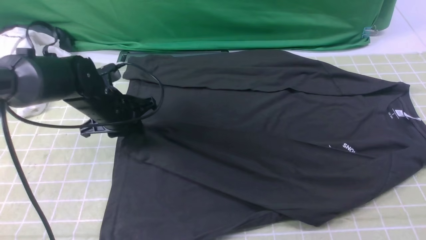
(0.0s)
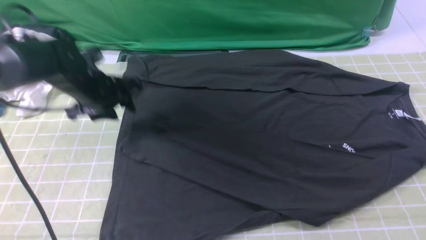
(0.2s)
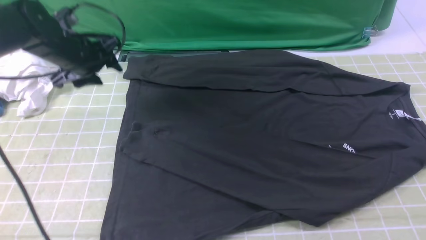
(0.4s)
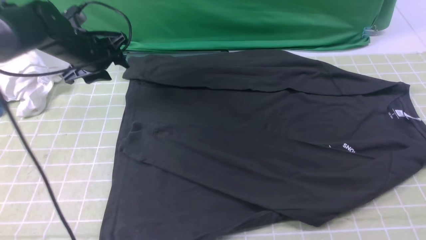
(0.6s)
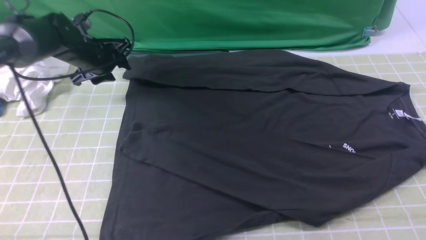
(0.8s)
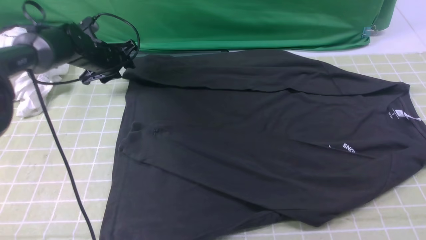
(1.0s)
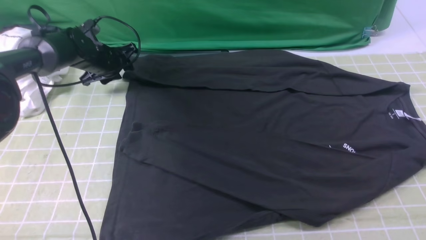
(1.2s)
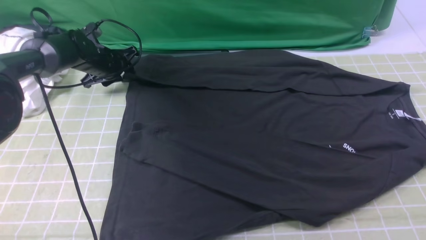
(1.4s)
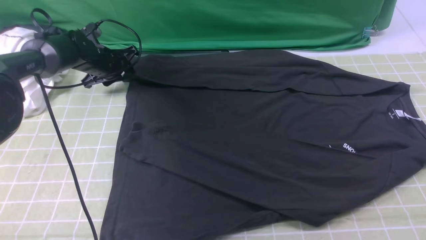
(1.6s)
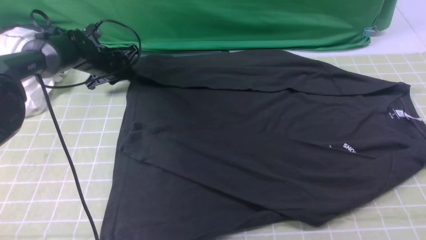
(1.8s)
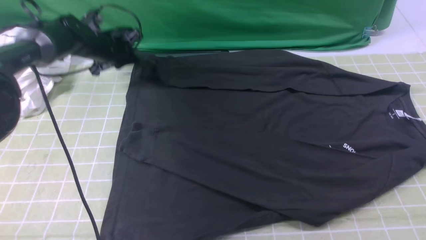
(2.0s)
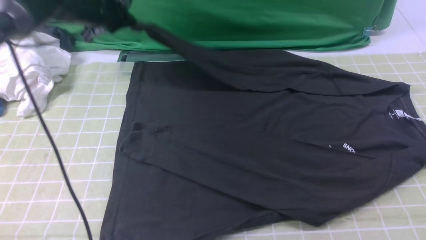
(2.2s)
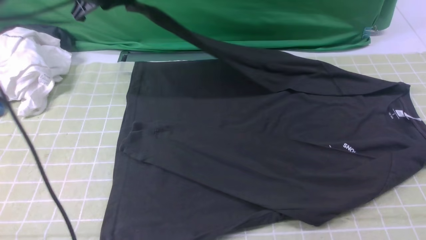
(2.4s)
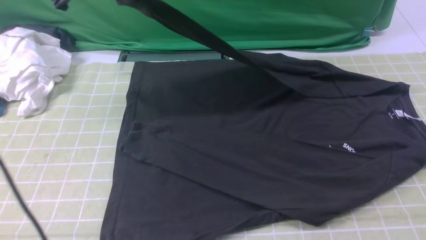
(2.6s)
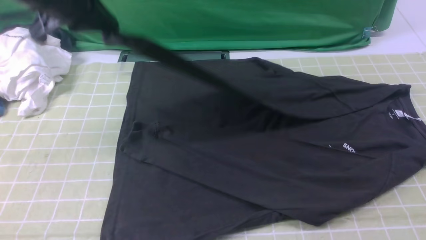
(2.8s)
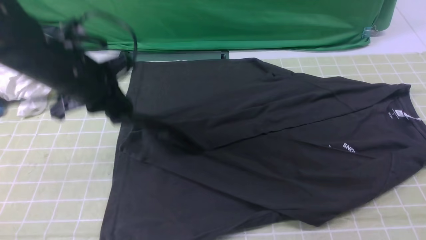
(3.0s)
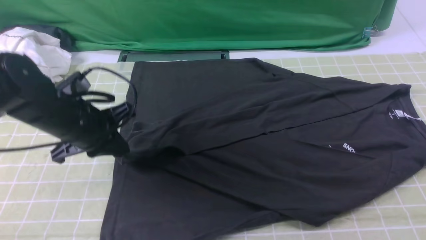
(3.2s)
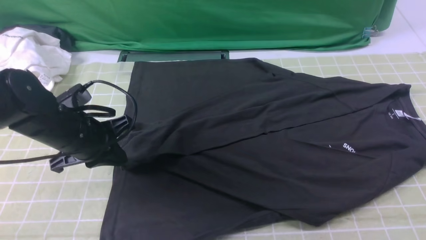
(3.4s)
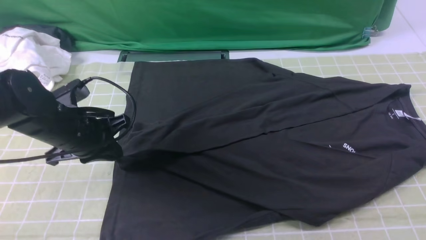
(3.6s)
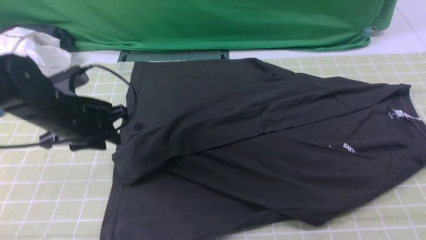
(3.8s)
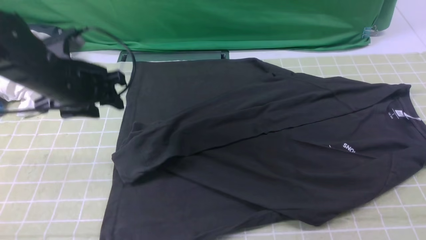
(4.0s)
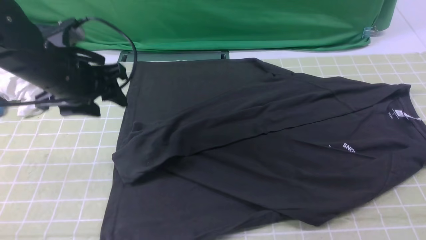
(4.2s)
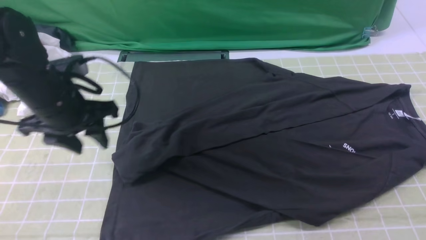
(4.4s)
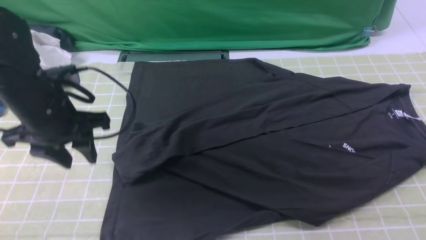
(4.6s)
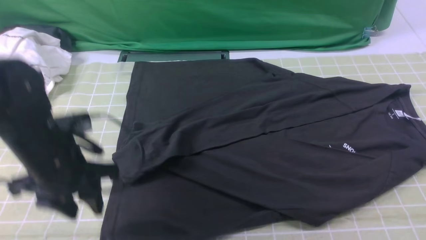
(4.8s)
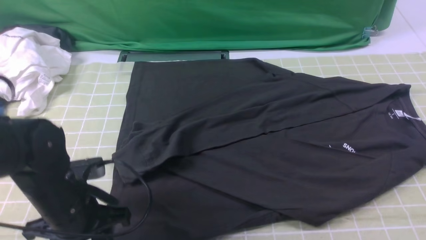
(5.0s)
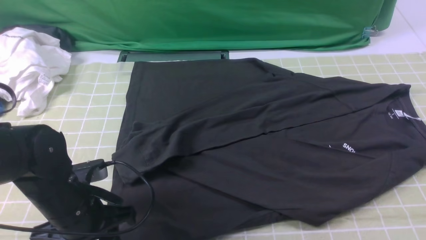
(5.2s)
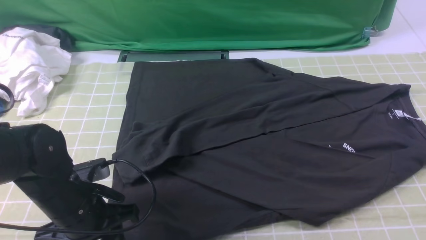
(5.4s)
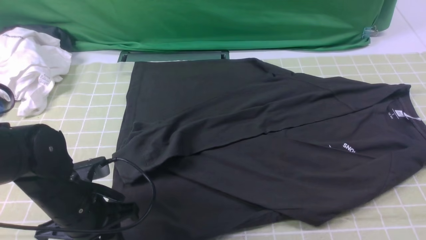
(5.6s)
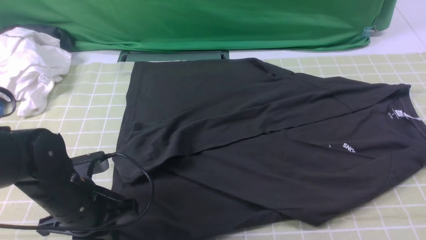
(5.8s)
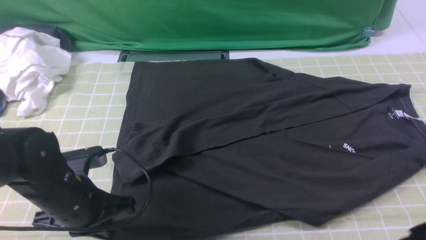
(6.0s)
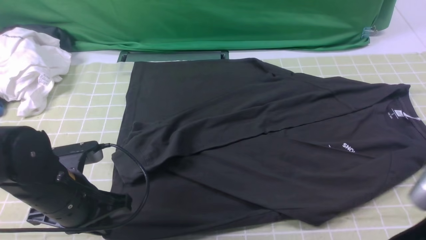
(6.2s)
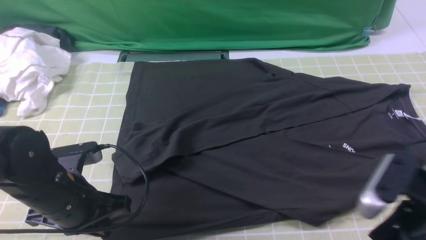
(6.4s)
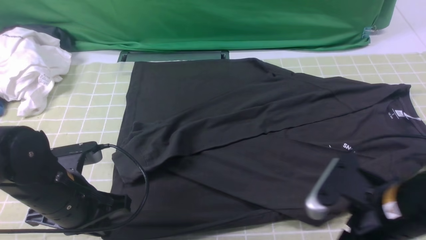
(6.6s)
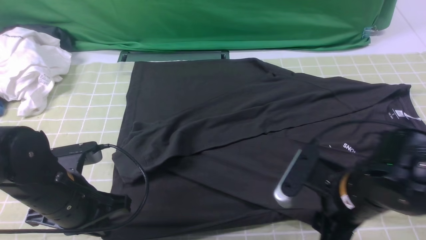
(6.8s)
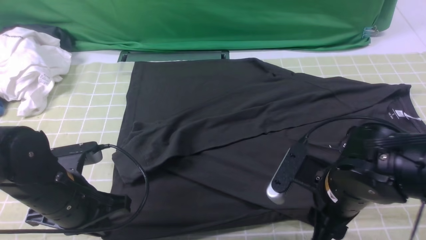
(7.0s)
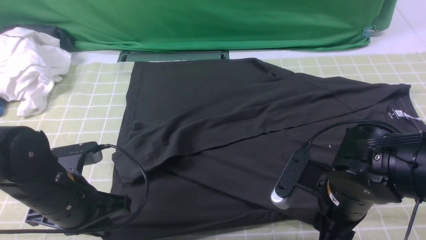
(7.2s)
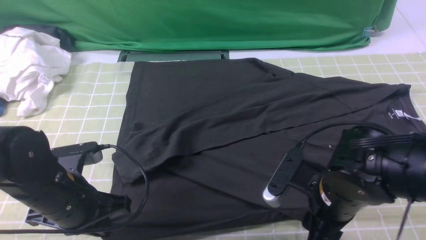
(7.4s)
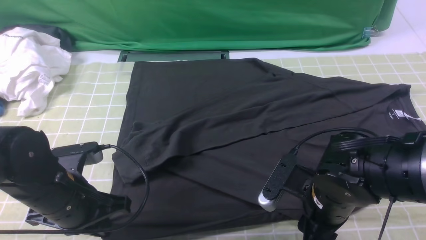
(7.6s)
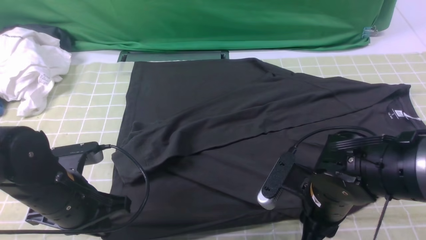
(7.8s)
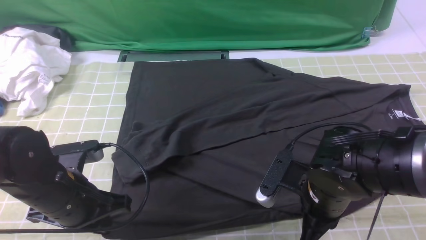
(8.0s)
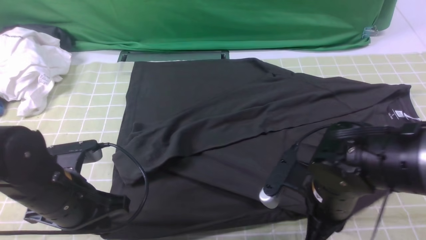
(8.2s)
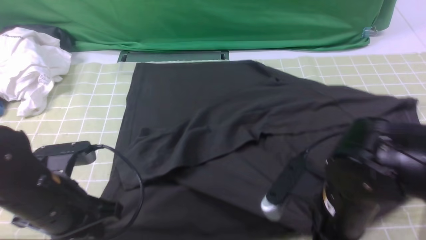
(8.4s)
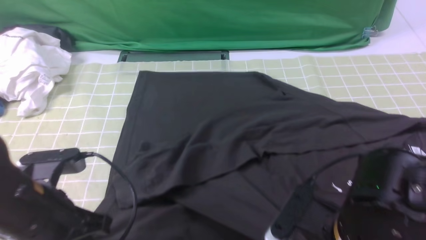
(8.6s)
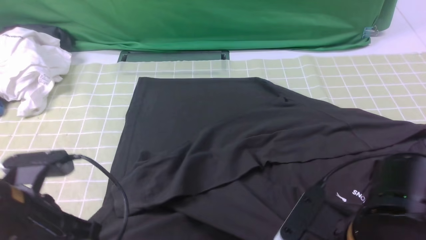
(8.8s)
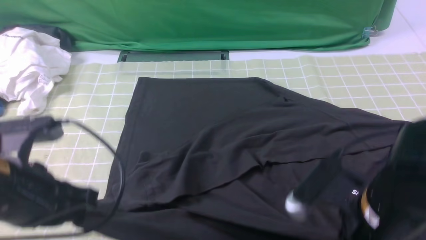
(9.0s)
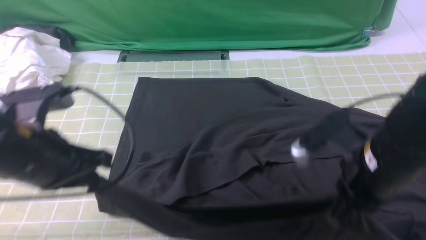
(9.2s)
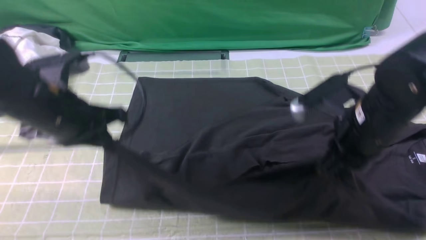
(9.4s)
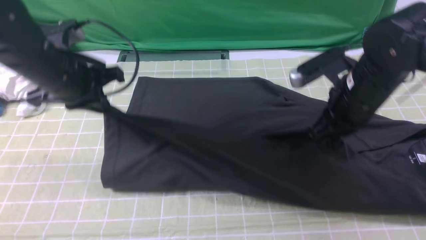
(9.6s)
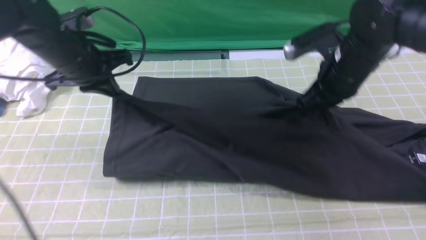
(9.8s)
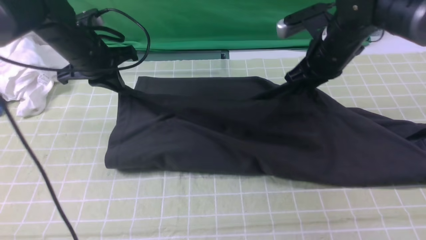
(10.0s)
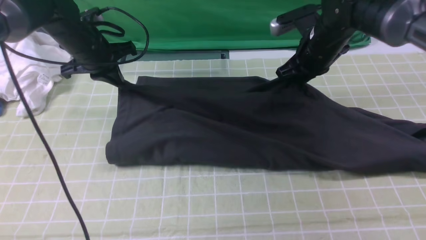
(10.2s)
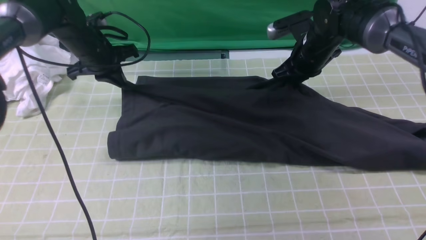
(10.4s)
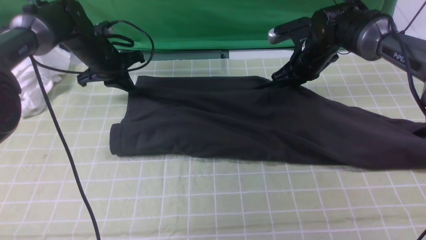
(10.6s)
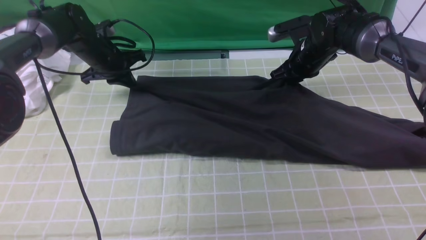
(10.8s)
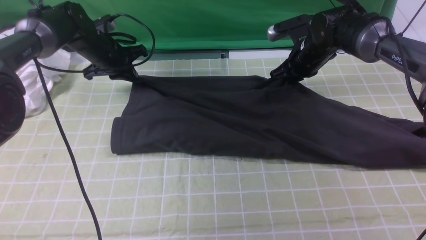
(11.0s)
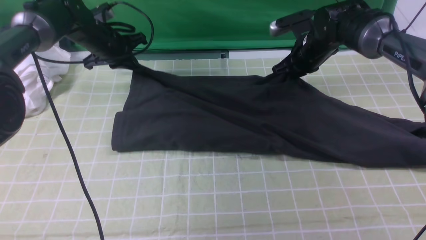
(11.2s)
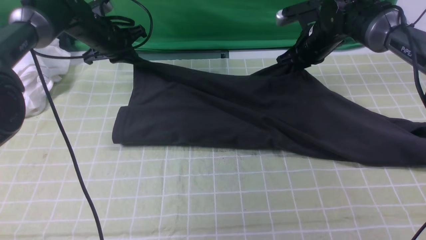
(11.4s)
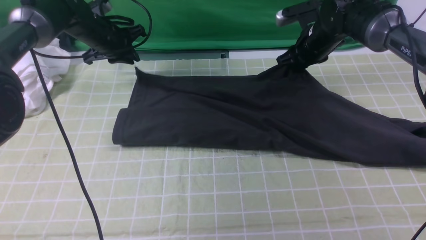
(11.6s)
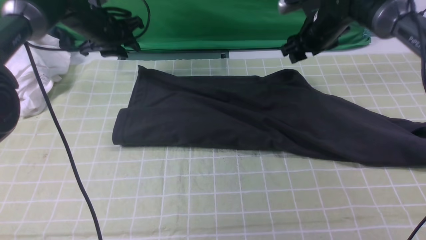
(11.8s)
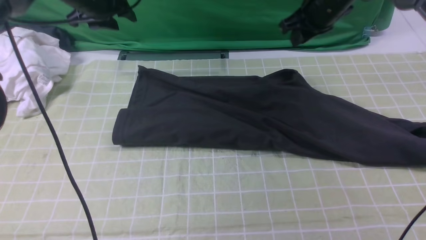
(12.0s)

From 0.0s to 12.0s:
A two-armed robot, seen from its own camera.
Step, from 0.2s to 1.8s: use the left arm to clamp the cuff farthest from it.
Step, from 2.0s to 3.8s: use the left arm to drag and drop the cuff onto the cuff closest to the left arm.
Step, from 4.0s to 8.0s: use both arms simultaneously to clamp the lower edge of the clothing fabric.
Step, from 8.2s to 11.8s: use both arms to drag the lower edge of the fabric forward and fold it over the upper edge.
From 0.0s to 1.6s: The left gripper shifts approximately 15 cm forward, and opens, then closes once more.
From 1.6s to 3.0s: The left gripper is displaced backward and upward by some 25 cm, and closes its fingers.
From 3.0s to 4.4s: The left gripper opens its fingers.
From 4.4s to 6.0s: The left gripper moves backward and downward, approximately 15 cm, and closes its fingers. The right gripper moves about 5 cm.
From 6.0s to 7.6s: The right gripper heads downward, to the left and forward, covering approximately 20 cm.
From 7.6s to 9.0s: Both grippers move upward, roughly 10 cm. The right gripper closes up.
From 9.0s to 10.4s: The grippers both shift forward by approximately 30 cm.
From 10.4s to 12.0s: Both grippers travel together upward, about 10 cm. The left gripper opens its fingers.

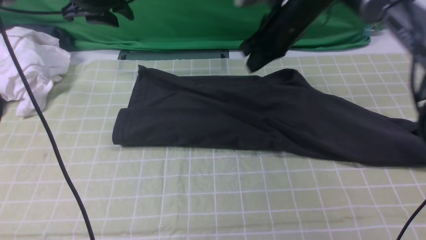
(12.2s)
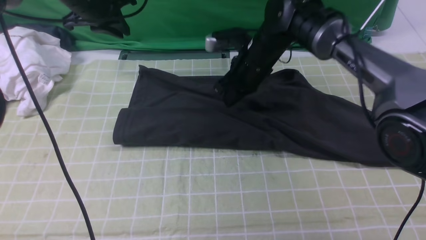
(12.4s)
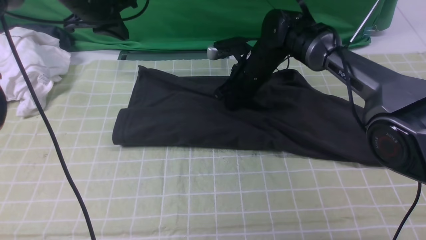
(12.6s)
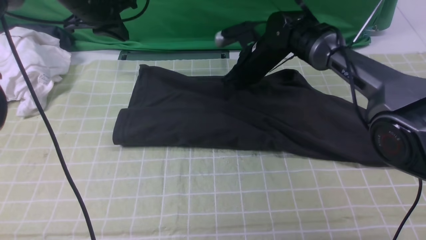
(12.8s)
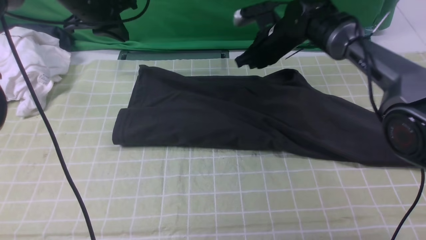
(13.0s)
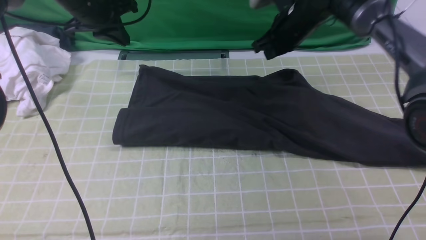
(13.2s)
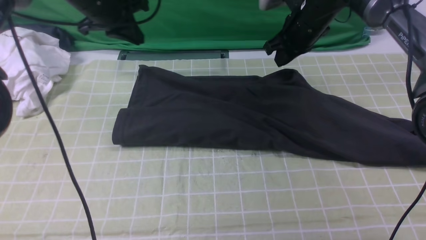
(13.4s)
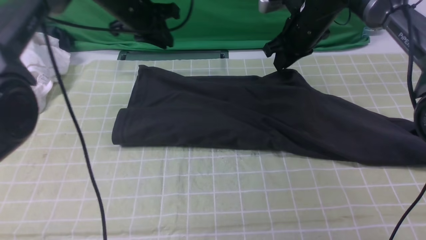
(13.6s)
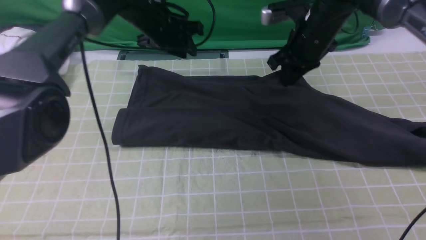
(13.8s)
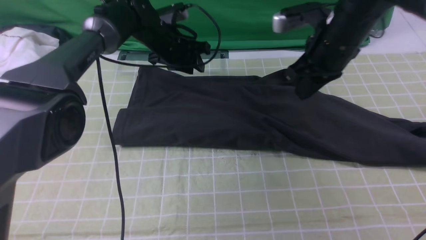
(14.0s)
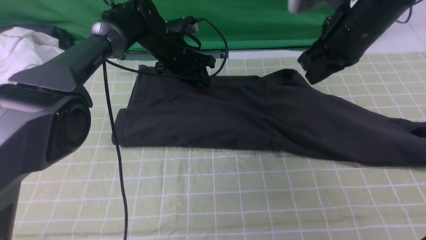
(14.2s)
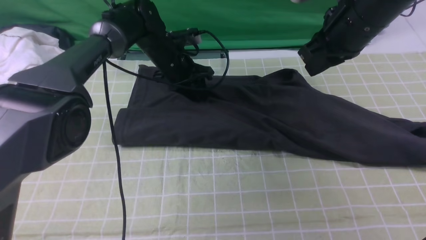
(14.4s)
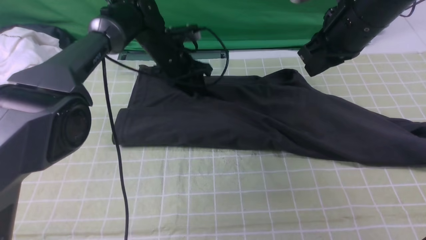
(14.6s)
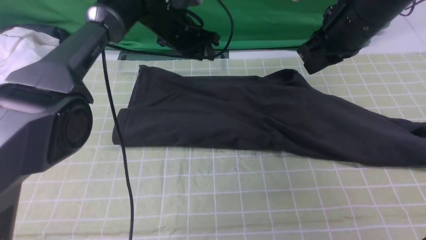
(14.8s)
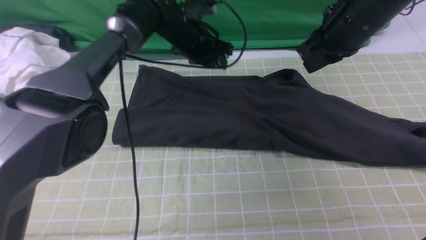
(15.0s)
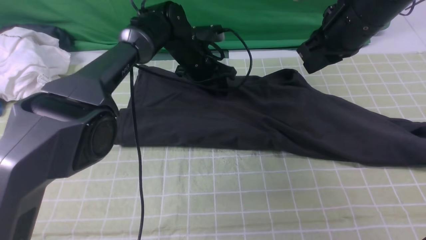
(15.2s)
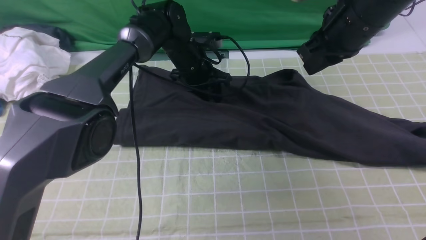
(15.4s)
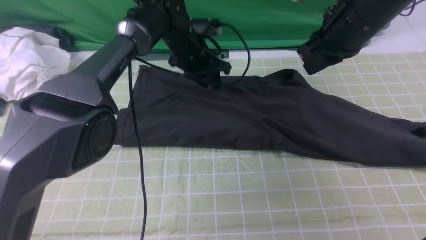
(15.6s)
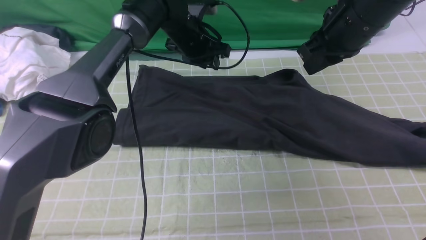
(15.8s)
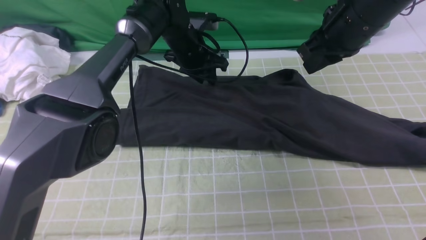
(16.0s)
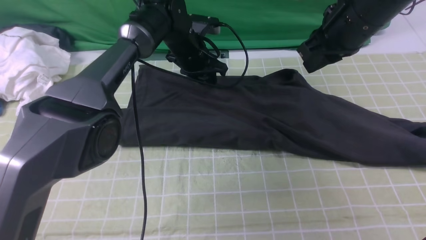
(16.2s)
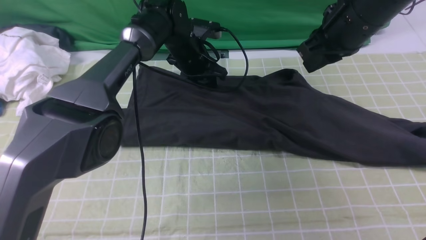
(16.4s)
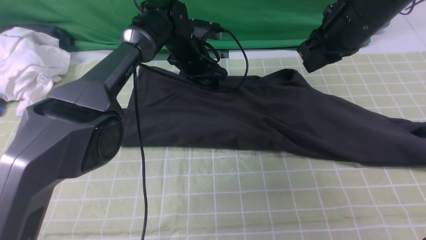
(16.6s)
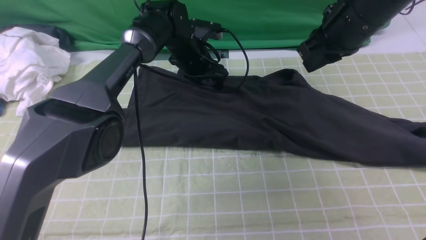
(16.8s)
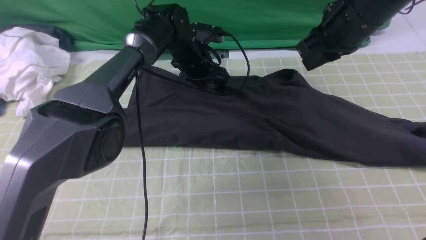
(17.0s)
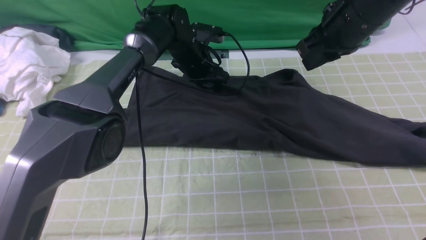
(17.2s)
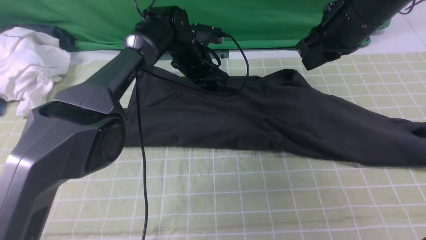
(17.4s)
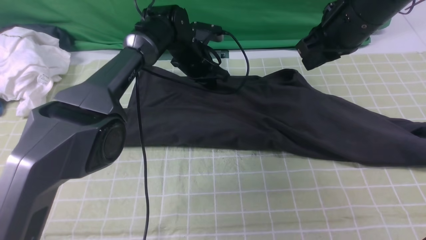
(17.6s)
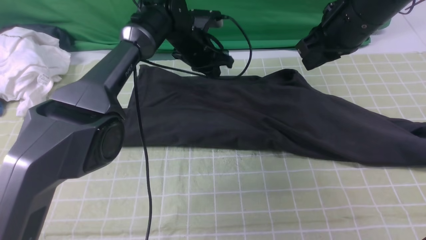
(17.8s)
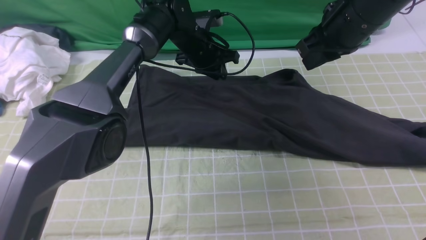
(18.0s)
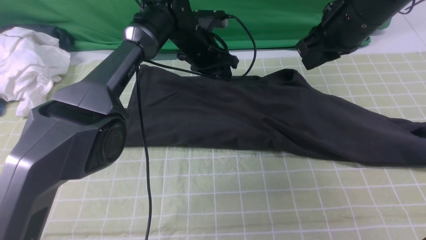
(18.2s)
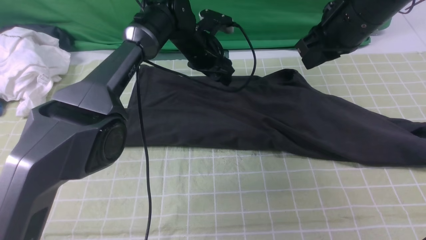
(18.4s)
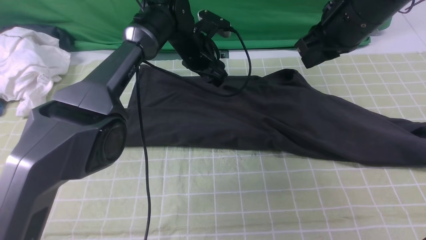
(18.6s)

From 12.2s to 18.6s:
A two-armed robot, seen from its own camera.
From 12.2s to 13.8s: The right gripper travels to the right by approximately 5 cm, and moves about 5 cm downward and comes back. Meanwhile the left gripper goes approximately 15 cm to the right and downward, and closes, then reopens.
From 13.8s to 15.4s: The left gripper goes roughly 10 cm to the right and downward. The right gripper goes some 10 cm backward and upward.
From 15.4s to 17.0s: The left gripper opens its fingers.
From 17.0s to 18.6s: The left gripper closes and opens again.
